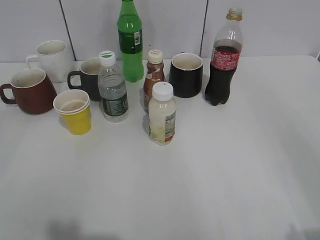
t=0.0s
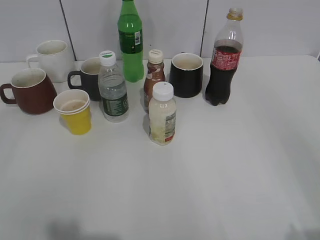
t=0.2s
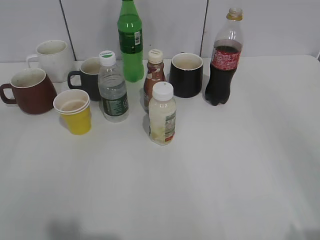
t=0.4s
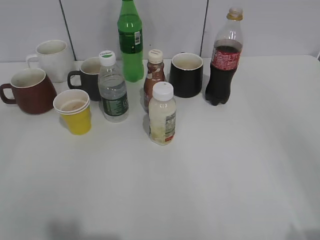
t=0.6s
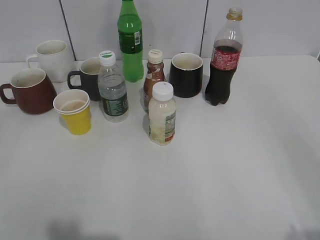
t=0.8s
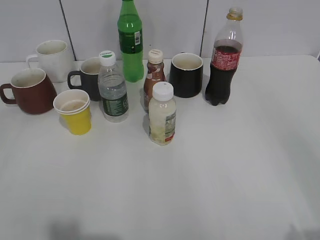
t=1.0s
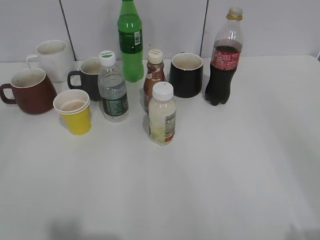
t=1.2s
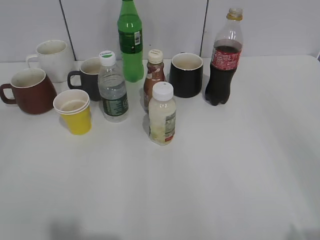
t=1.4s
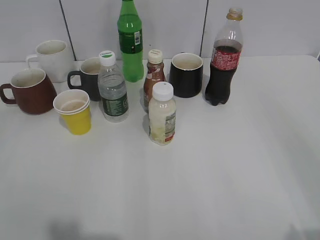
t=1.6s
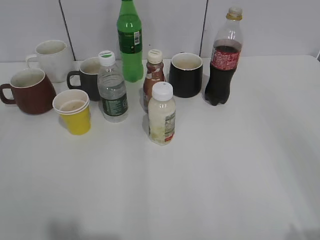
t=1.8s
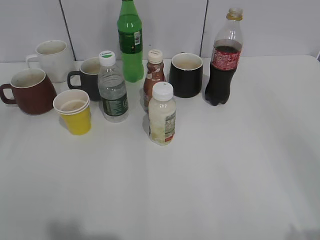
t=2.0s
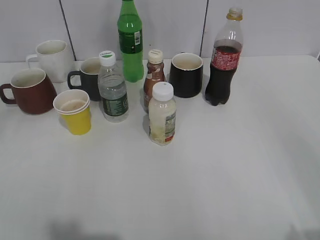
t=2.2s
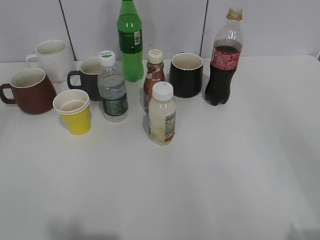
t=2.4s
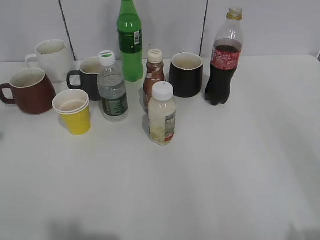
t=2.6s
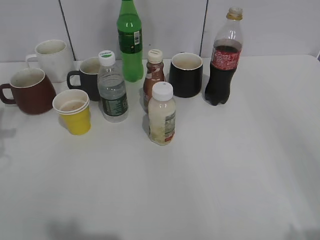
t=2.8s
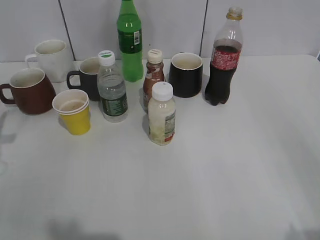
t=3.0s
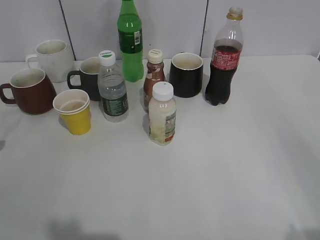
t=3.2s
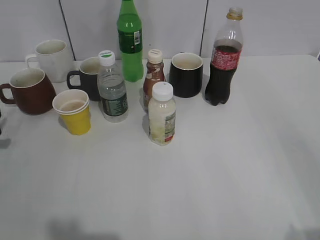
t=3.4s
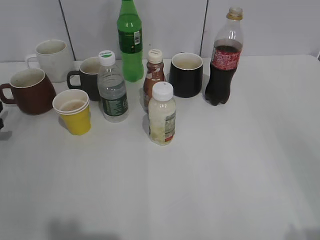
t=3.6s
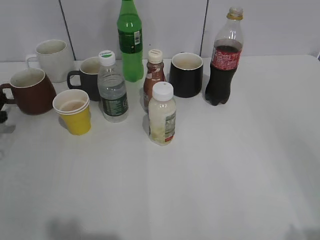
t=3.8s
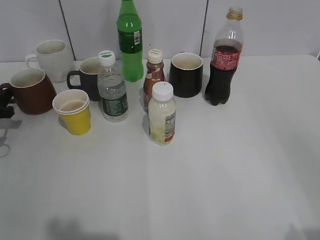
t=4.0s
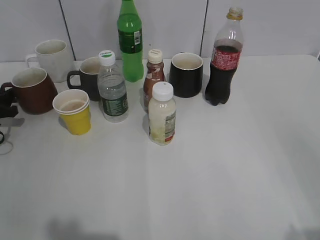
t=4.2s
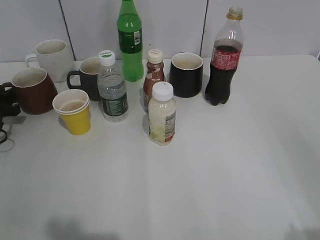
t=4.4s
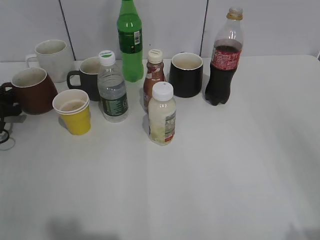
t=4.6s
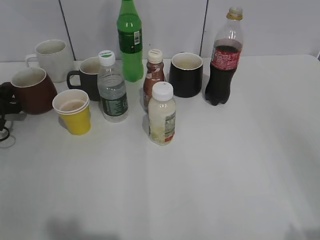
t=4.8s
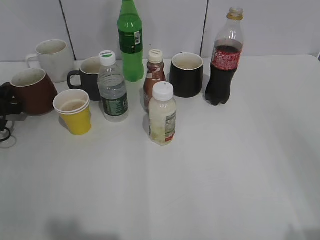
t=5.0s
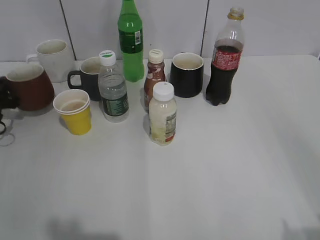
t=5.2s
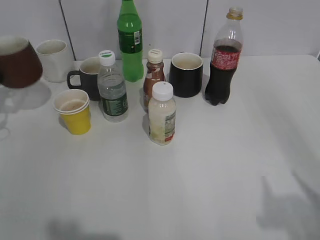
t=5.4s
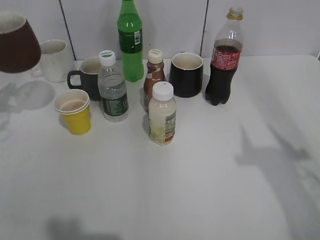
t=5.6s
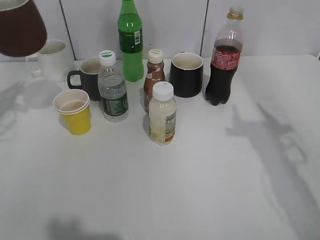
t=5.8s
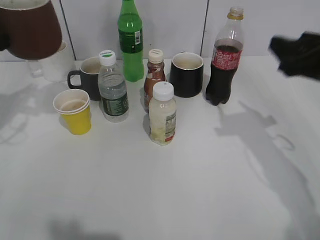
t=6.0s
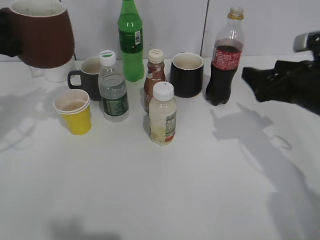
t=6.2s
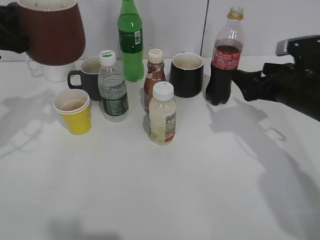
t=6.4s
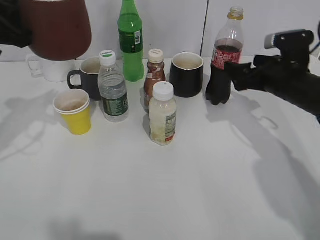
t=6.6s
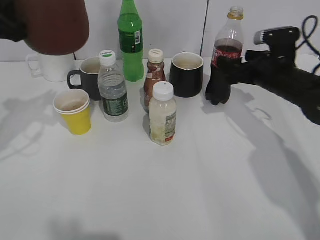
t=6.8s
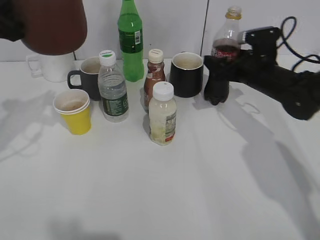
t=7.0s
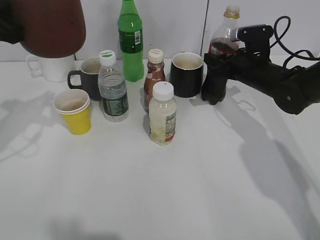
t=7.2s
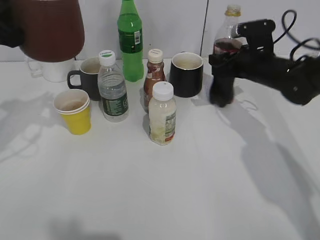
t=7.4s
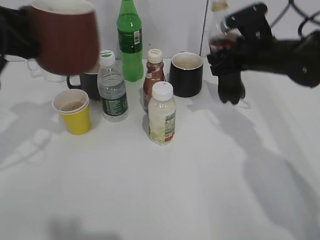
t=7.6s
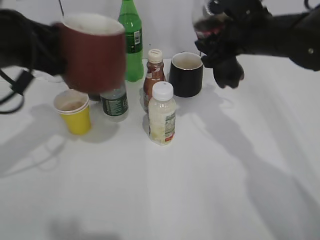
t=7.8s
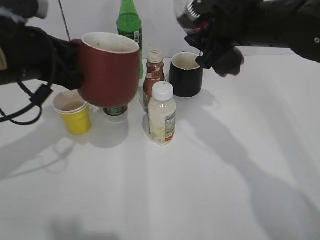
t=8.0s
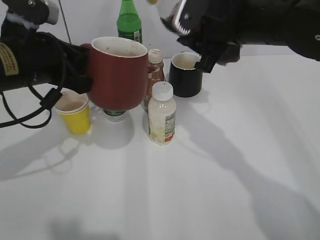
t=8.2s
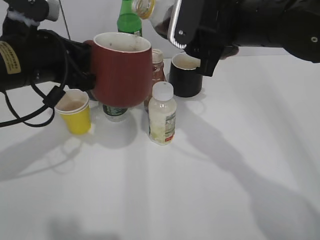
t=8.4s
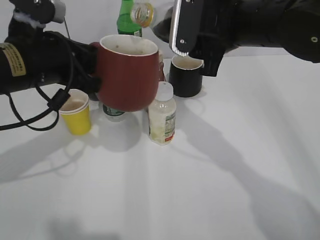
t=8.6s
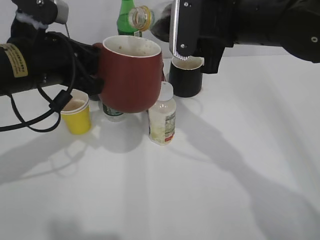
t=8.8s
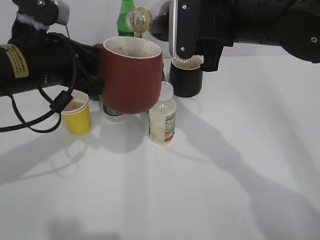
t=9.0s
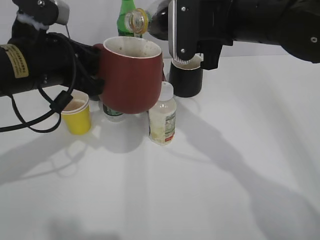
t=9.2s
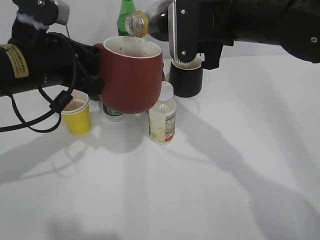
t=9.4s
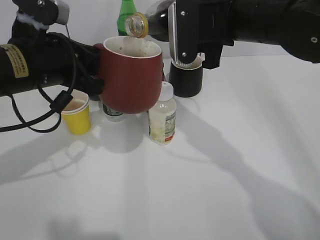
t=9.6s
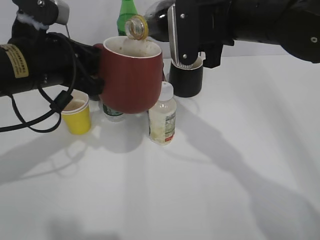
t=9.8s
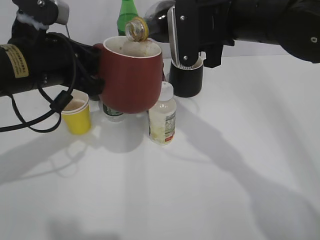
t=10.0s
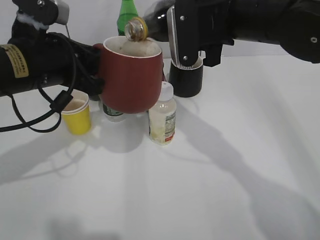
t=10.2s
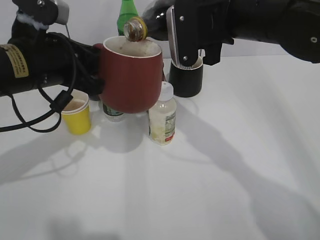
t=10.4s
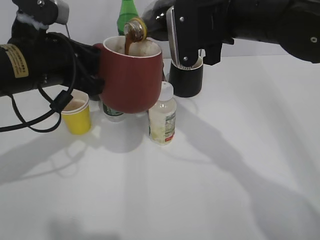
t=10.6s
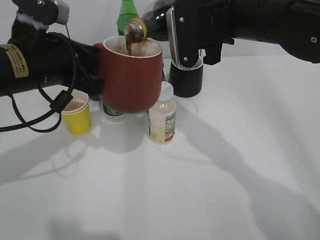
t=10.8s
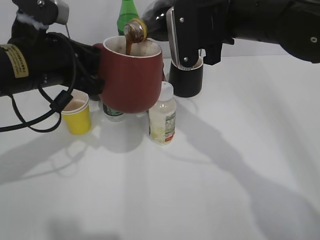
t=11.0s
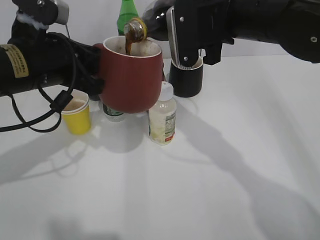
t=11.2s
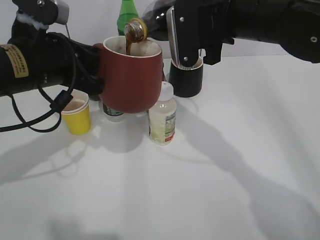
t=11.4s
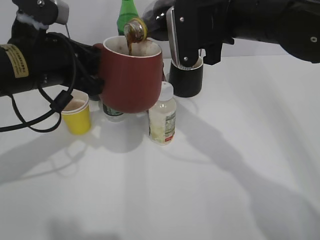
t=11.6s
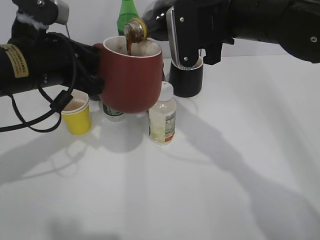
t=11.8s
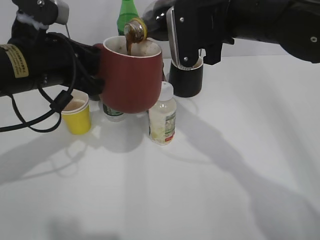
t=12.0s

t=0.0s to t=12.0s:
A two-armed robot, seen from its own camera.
Step, t=5.2s to t=7.0s: Grasp the bottle with cola with right gripper.
t=1.6s to t=3.0s: The left gripper moves forward and downward, about 30 cm.
t=3.0s to t=4.4s: The left gripper goes approximately 15 cm forward and downward.
t=4.4s to t=6.0s: The right gripper goes about 25 cm forward. Meanwhile the left gripper heads upward, covering about 20 cm, and closes up.
t=6.0s to t=7.6s: The right gripper travels forward, to the left and downward by about 15 cm, and opens and closes again. The left gripper moves to the right and backward, roughly 10 cm.
t=7.6s to t=9.0s: The right gripper is displaced upward, to the left and backward by some 15 cm. Meanwhile the left gripper travels to the right by roughly 5 cm.
t=9.0s to t=10.4s: The grippers make only small movements.
t=10.4s to t=12.0s: Both grippers stay about where they are.

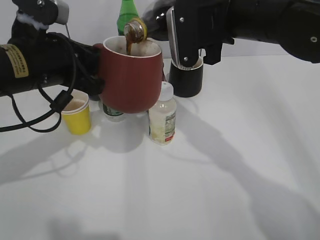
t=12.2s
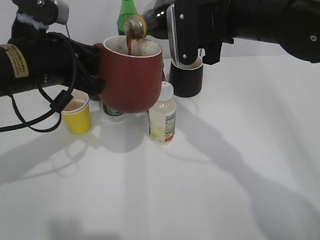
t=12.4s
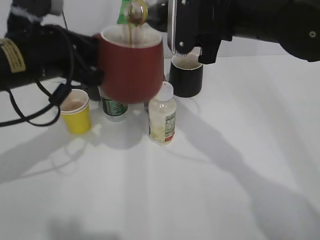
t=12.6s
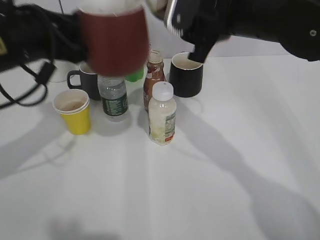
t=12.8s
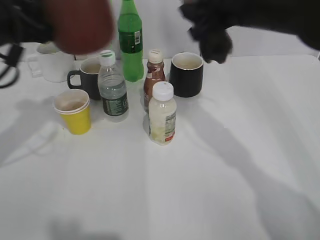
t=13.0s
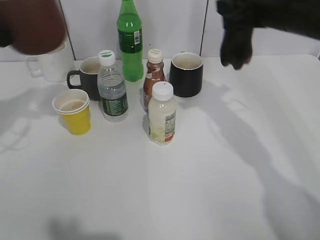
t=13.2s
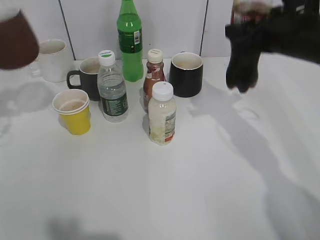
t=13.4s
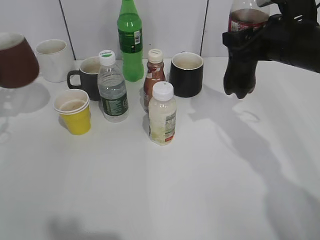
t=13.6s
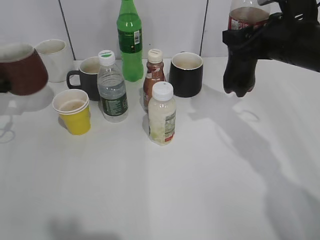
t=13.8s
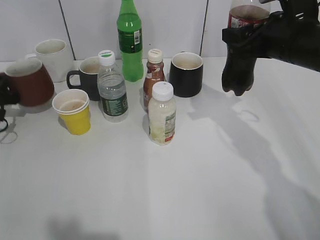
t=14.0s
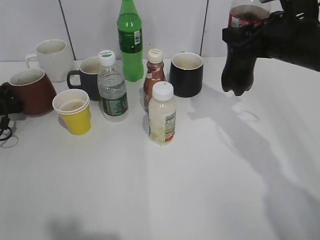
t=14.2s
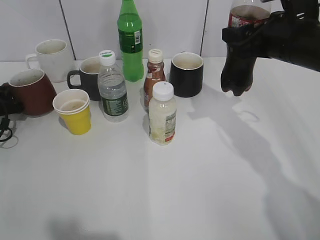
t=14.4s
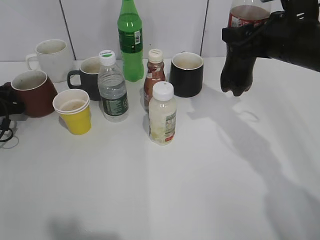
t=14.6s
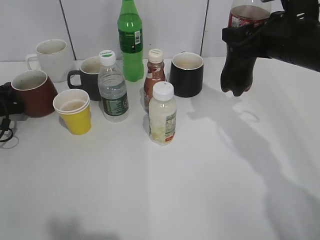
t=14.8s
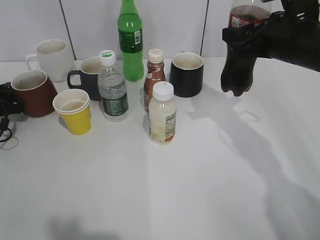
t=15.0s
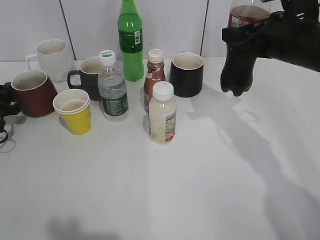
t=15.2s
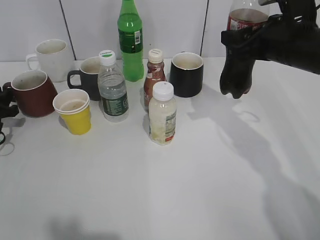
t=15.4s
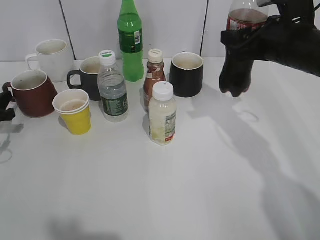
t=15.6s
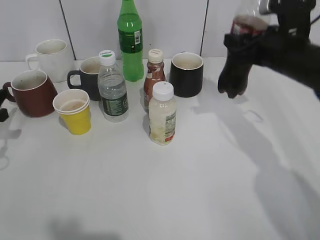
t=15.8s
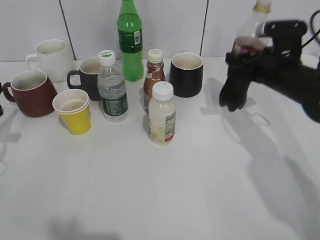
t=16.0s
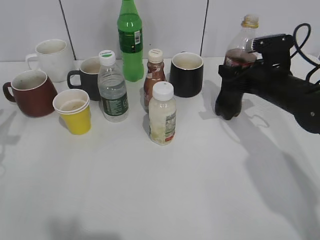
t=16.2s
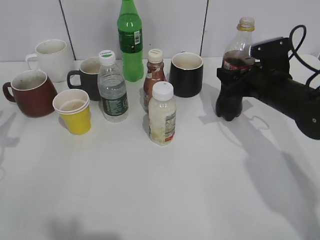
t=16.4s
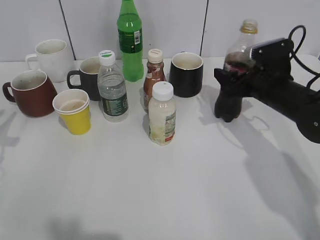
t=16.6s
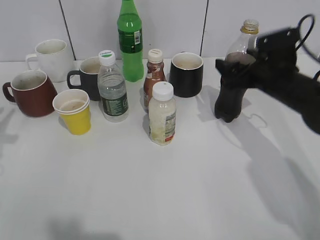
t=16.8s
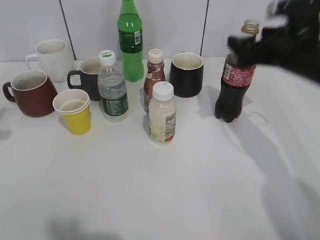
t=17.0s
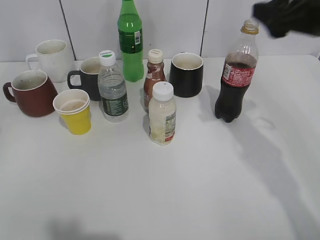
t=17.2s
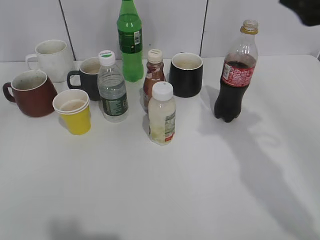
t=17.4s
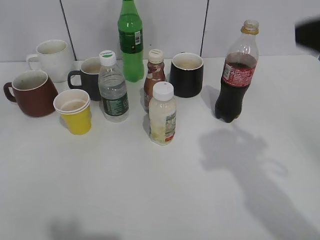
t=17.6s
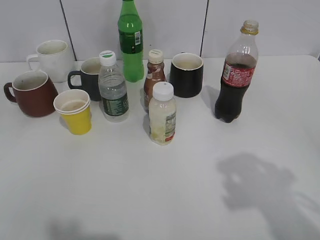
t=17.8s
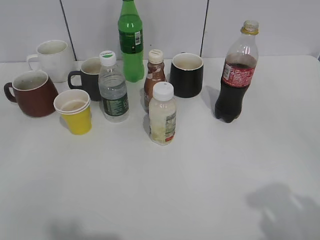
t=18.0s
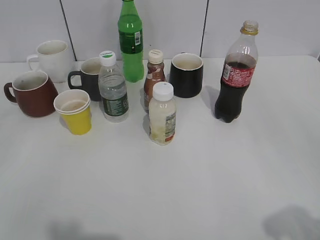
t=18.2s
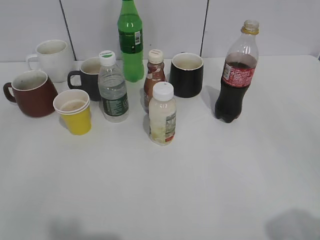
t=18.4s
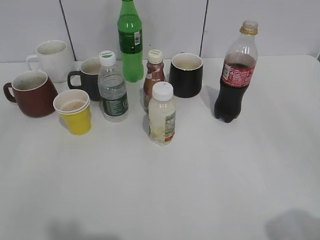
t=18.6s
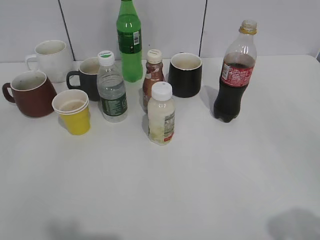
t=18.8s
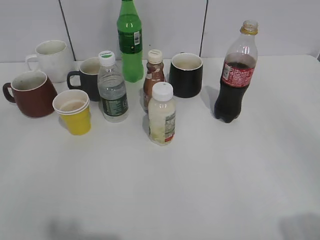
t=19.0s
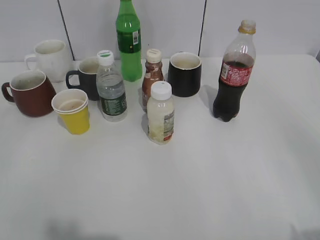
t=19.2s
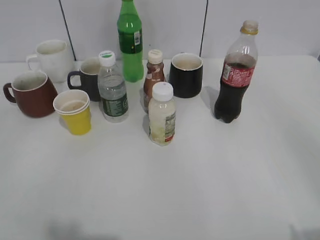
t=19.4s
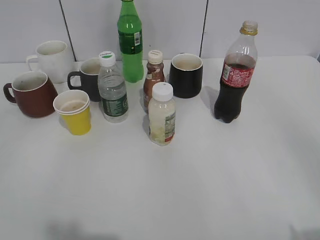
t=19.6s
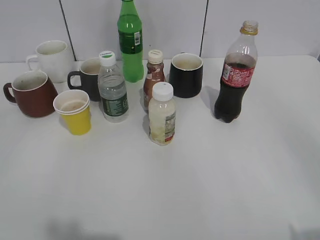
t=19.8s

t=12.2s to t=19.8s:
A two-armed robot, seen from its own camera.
Step, t=13.2s to t=17.0s: Place the cola bottle on the table with right gripper.
t=12.2s to t=13.8s: The right gripper moves to the right, about 10 cm, while the left gripper travels to the left, downward and forward by approximately 25 cm.
t=13.8s to t=15.2s: The left gripper is displaced downward by some 5 cm, and opens.
t=15.2s to t=16.8s: The right gripper shifts about 10 cm downward, and opens up; the left gripper heads upward and backward, covering about 15 cm.
t=16.8s to t=18.2s: The grippers both shift backward and upward by approximately 30 cm. The left gripper opens up, while the right gripper closes.

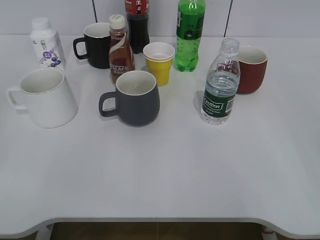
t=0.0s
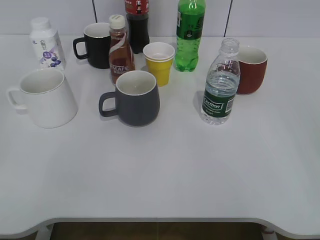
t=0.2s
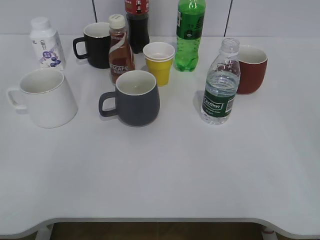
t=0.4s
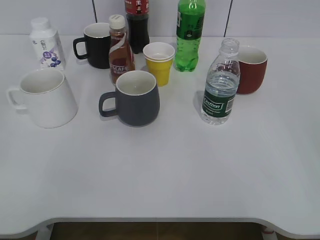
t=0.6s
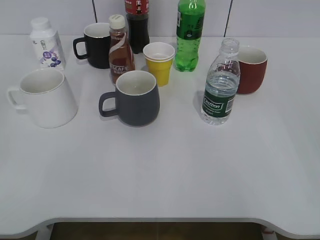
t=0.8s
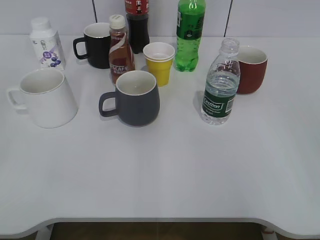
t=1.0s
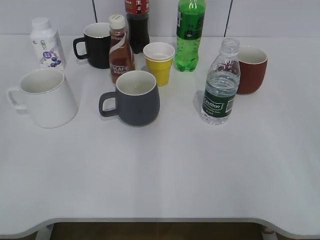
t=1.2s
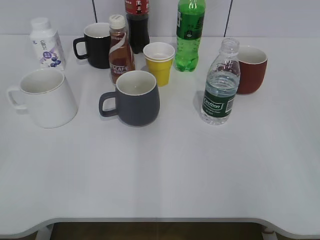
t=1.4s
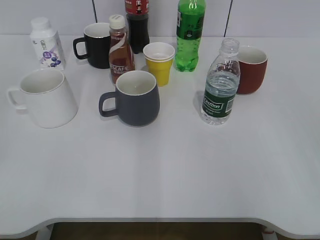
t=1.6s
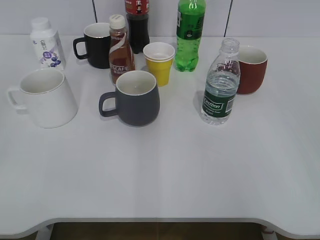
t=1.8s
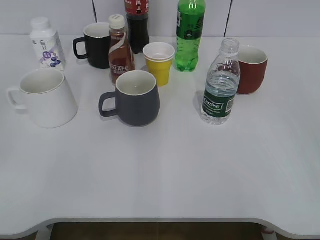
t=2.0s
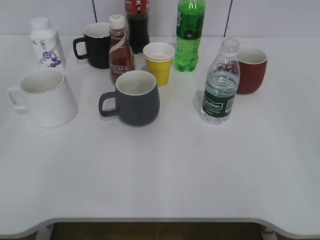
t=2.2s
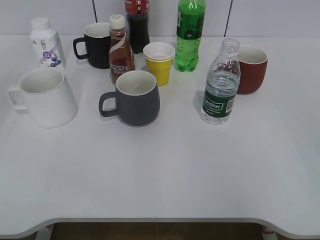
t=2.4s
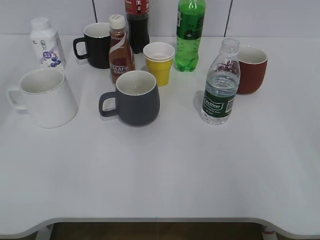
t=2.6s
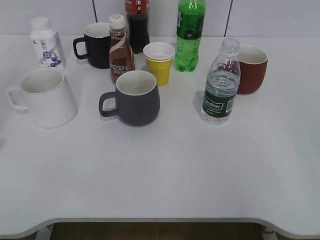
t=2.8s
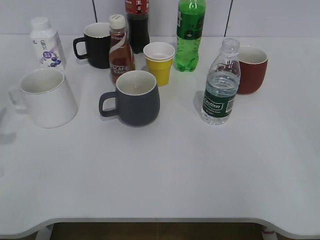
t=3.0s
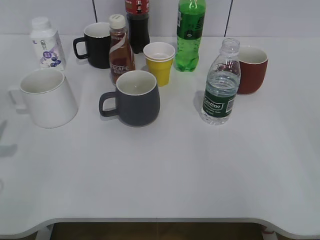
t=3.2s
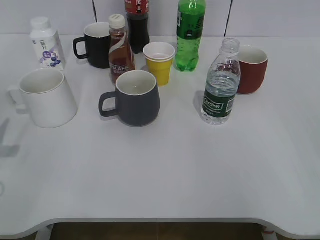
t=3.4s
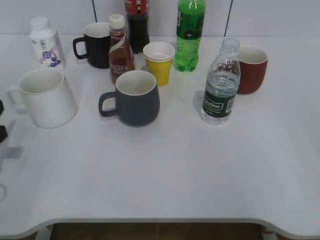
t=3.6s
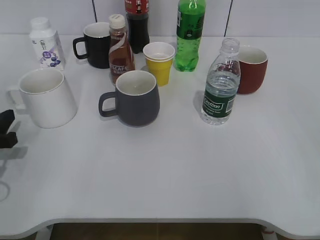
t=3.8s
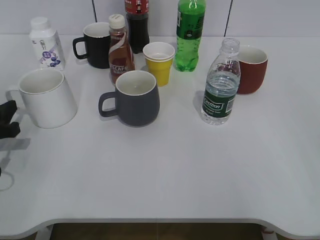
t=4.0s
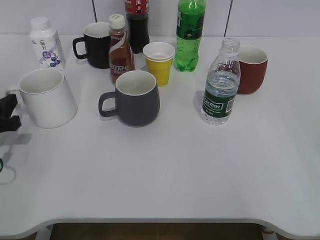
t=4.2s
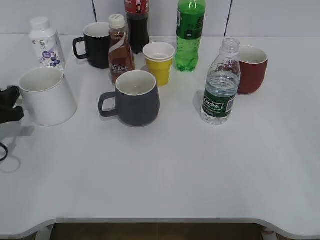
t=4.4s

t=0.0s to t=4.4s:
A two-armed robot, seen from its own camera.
t=3.0s to t=4.4s: The left gripper travels downward and forward by roughly 10 cm.
